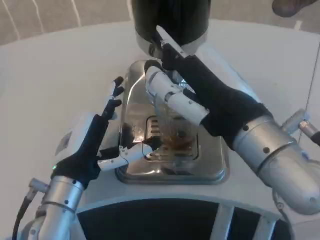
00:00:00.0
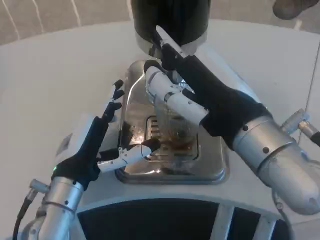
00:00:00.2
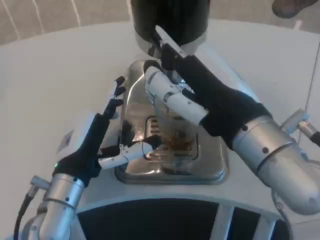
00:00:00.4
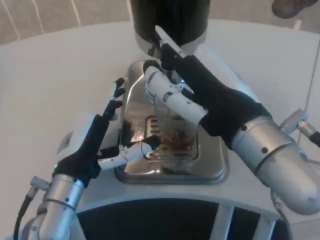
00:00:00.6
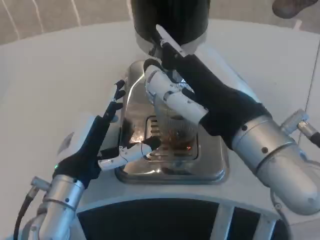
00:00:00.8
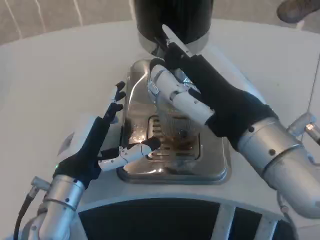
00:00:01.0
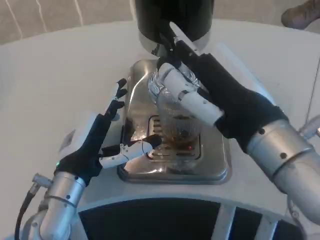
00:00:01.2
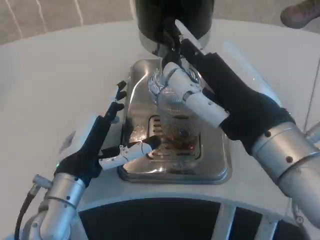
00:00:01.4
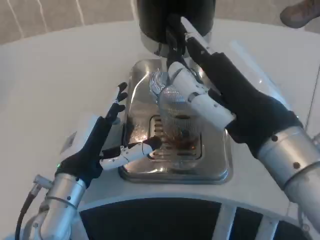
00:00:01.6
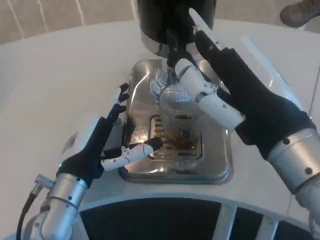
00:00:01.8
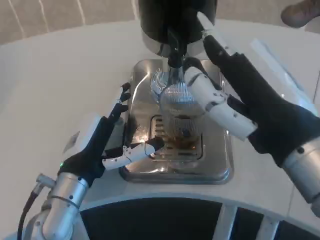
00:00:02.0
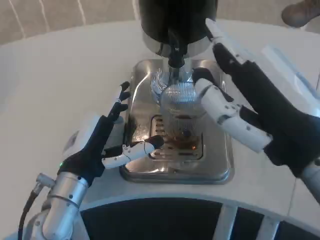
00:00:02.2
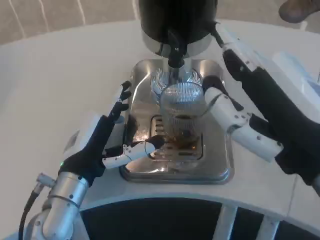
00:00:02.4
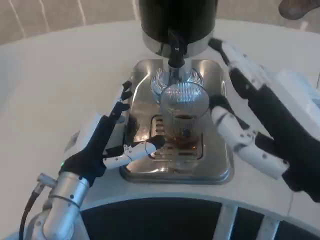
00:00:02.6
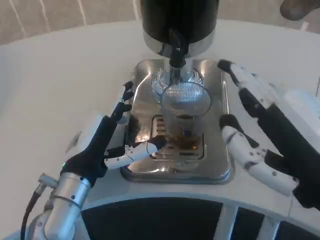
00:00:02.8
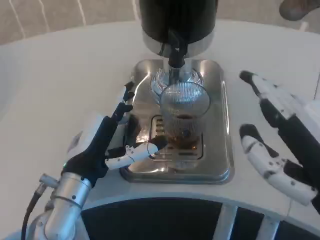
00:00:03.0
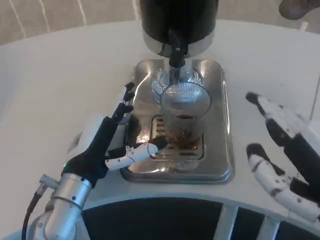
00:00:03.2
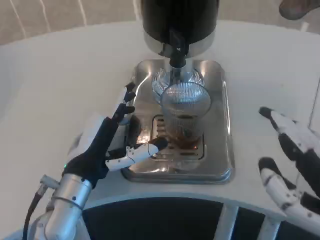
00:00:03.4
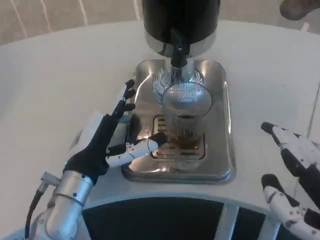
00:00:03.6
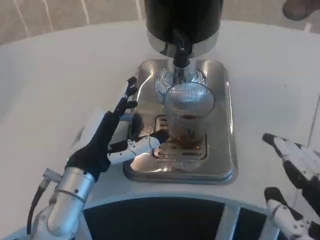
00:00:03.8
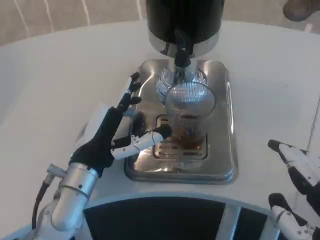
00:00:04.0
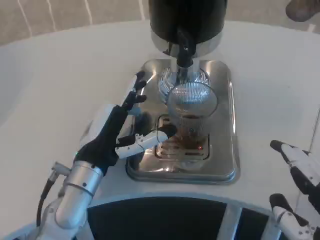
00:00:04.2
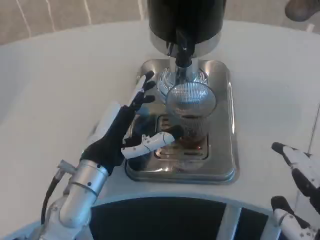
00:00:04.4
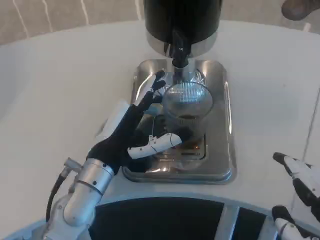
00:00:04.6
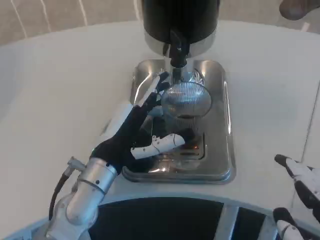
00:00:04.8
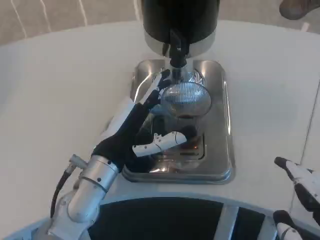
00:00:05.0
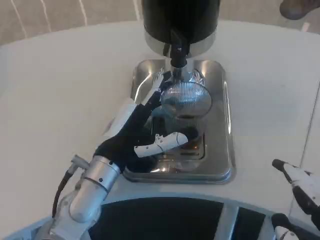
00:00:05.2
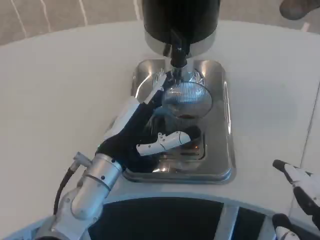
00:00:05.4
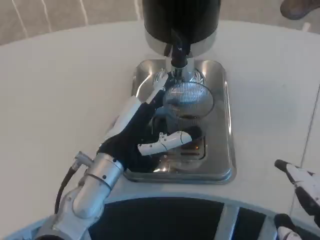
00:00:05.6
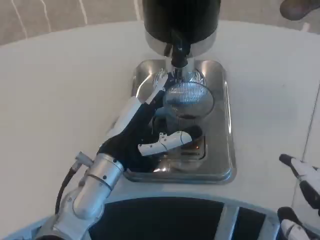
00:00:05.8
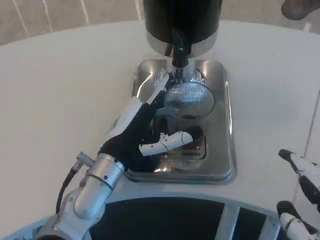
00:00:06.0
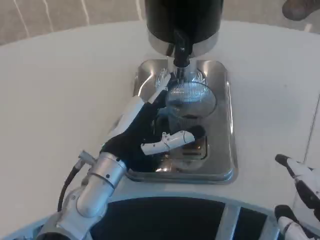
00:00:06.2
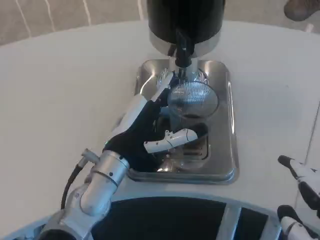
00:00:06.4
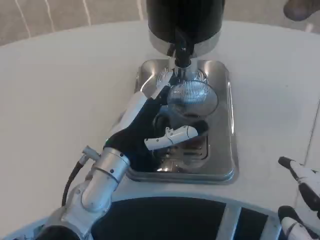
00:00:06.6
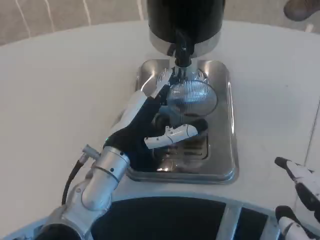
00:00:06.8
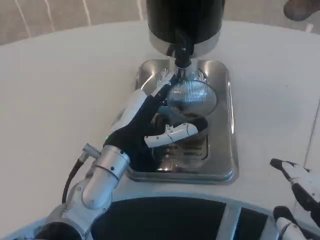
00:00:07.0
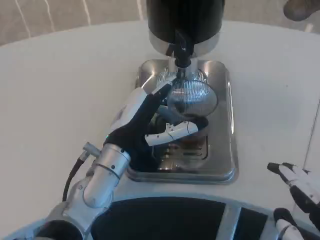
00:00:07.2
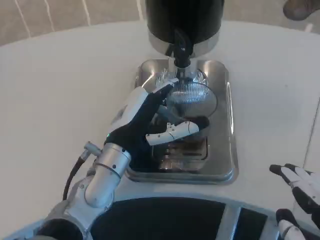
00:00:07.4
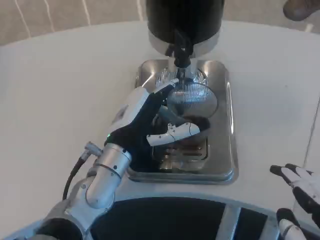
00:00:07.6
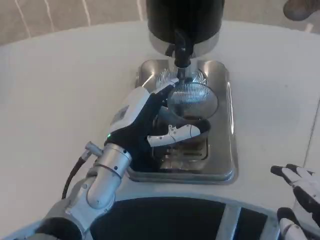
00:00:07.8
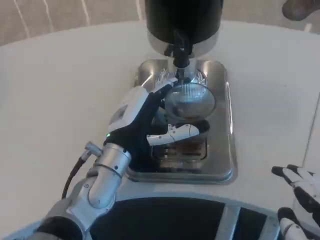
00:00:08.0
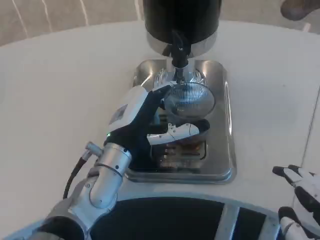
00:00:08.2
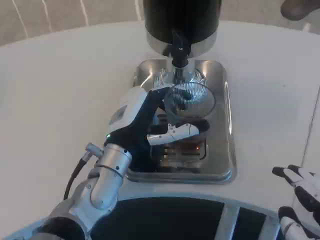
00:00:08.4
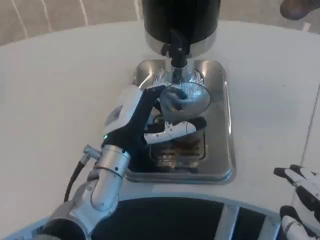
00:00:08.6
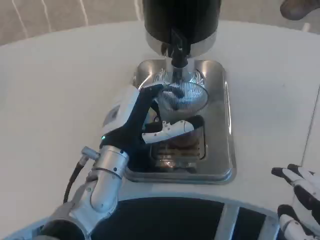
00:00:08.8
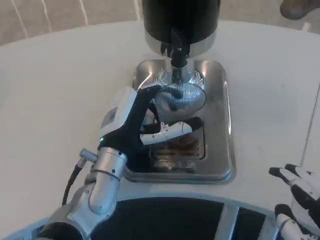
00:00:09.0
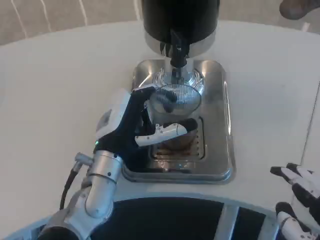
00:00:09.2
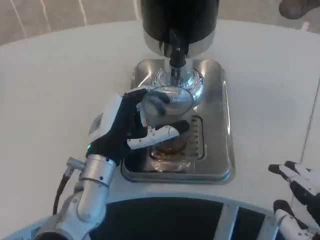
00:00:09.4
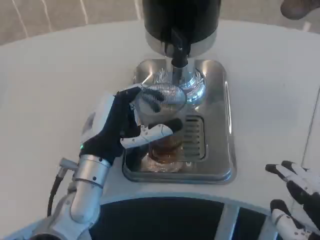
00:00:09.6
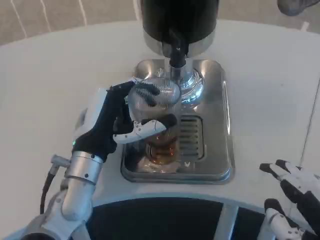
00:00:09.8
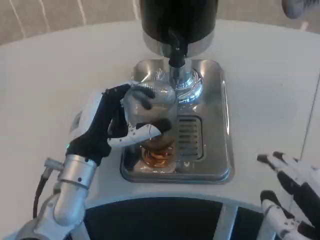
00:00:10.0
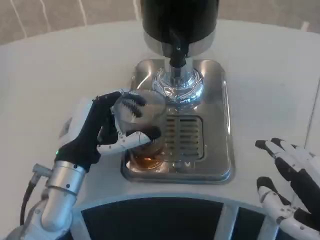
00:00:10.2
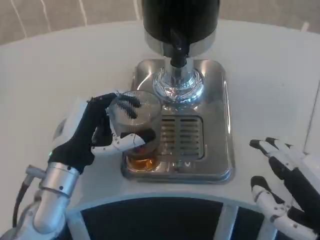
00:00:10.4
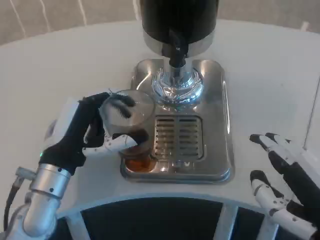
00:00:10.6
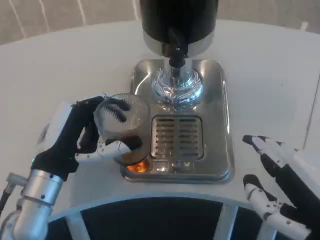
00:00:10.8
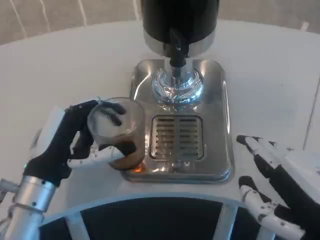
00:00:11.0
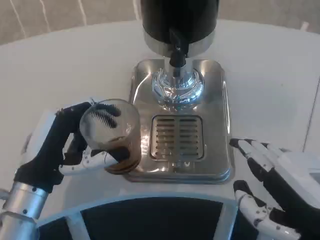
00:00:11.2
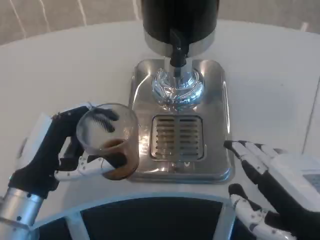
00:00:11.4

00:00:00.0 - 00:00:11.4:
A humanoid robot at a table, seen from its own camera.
Task of the whole recording: Grasp the cup under the faucet to collect the drink, then remove the cup.
00:00:01.4 - 00:00:02.8: The right hand goes roughly 10 cm backward and to the right.
00:00:02.8 - 00:00:04.2: The right hand ends up roughly 5 cm from where it was.
00:00:05.6 - 00:00:08.6: The hands make only small movements.
00:00:08.6 - 00:00:10.0: The left hand changes place by about 5 cm.
00:00:10.0 - 00:00:11.4: The left hand moves to the left and backward, about 10 cm.

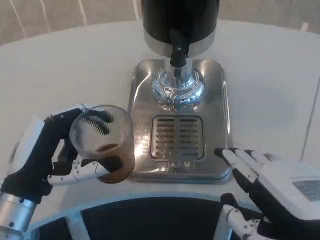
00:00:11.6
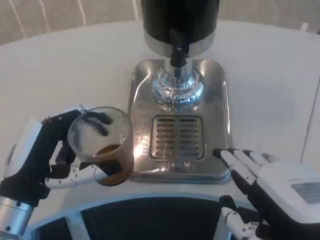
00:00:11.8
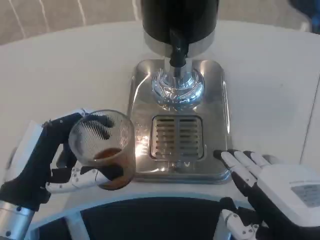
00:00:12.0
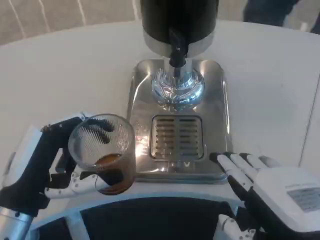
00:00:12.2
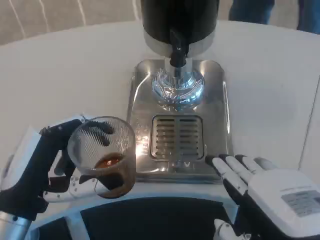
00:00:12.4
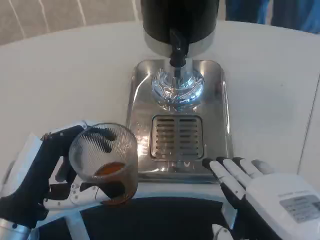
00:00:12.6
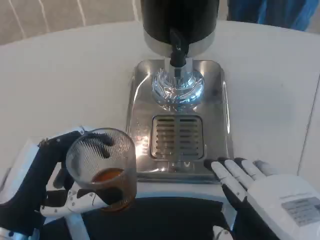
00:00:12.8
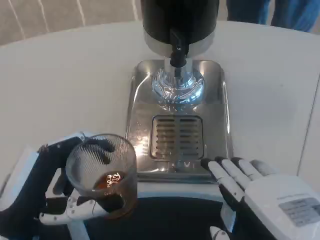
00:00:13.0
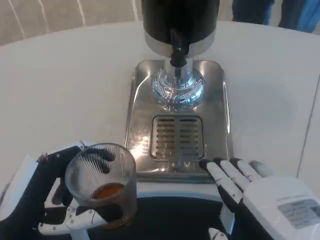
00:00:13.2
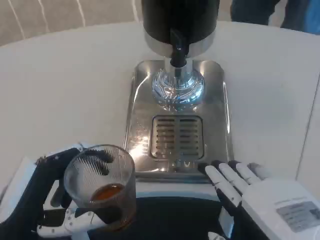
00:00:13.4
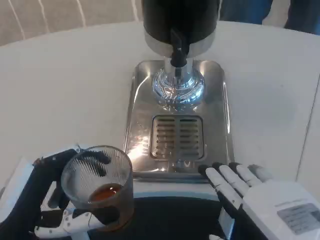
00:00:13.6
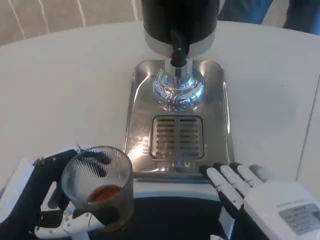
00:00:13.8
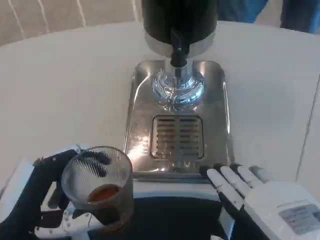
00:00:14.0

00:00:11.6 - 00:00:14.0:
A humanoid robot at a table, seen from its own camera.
Task of the whole recording: Grasp the cup under the faucet to collect the drink, then remove the cup.
00:00:12.8 - 00:00:14.0: The hands make only small movements.
